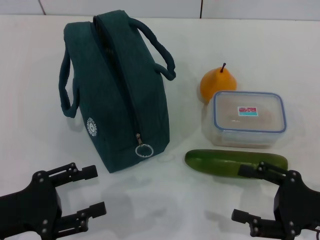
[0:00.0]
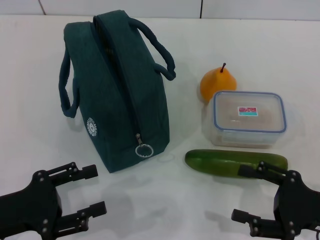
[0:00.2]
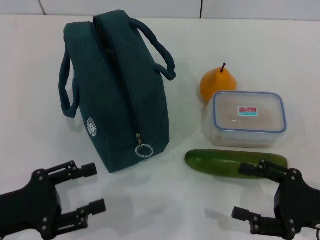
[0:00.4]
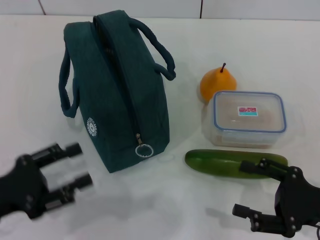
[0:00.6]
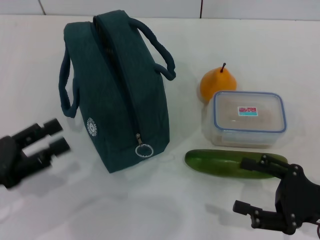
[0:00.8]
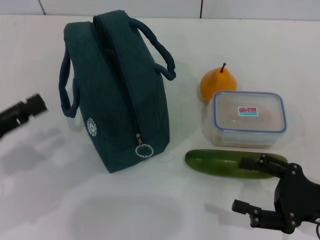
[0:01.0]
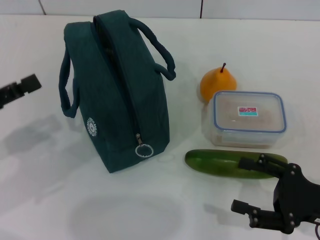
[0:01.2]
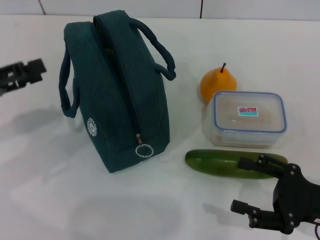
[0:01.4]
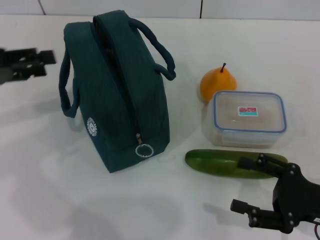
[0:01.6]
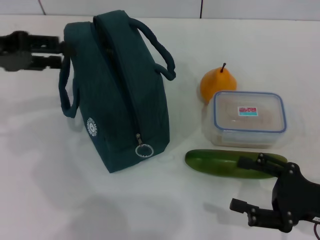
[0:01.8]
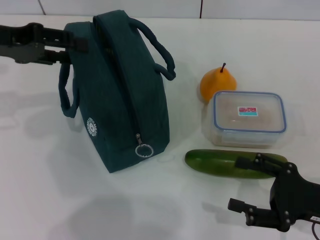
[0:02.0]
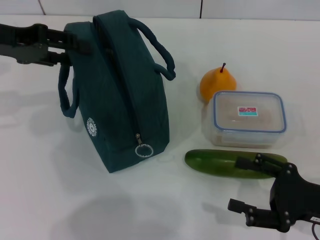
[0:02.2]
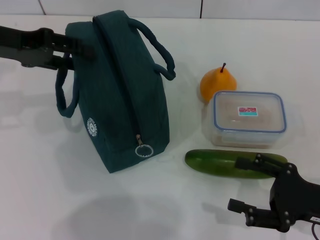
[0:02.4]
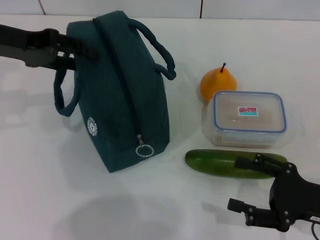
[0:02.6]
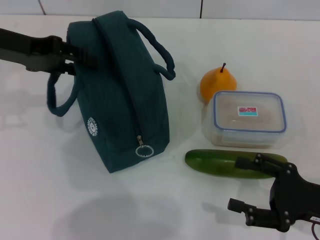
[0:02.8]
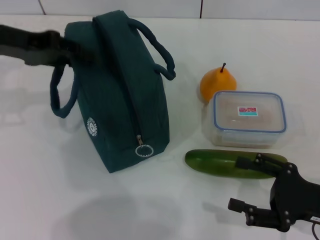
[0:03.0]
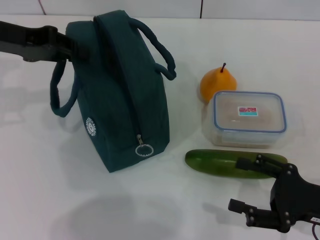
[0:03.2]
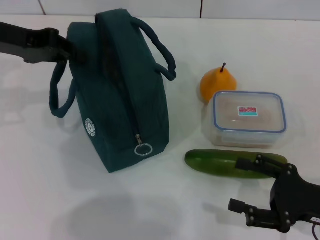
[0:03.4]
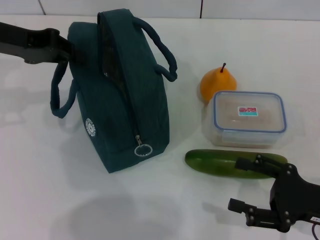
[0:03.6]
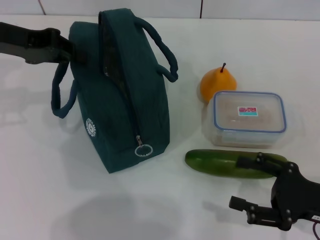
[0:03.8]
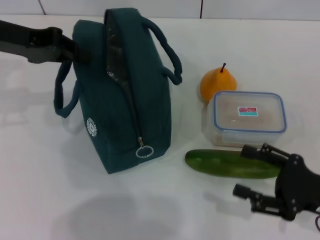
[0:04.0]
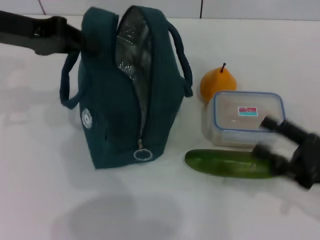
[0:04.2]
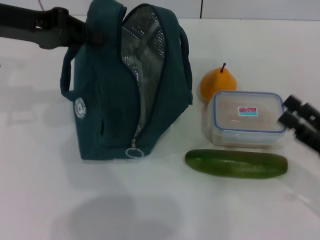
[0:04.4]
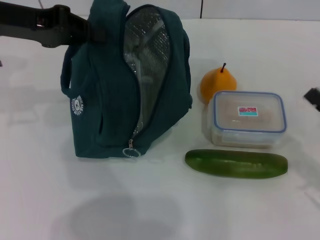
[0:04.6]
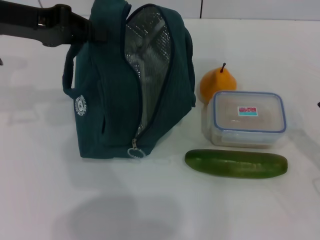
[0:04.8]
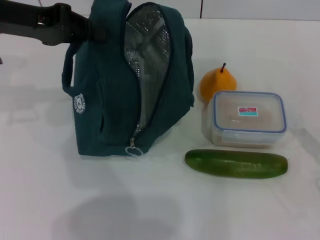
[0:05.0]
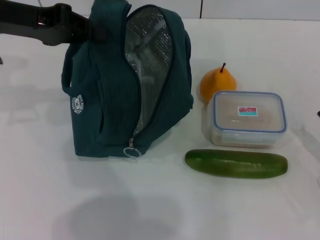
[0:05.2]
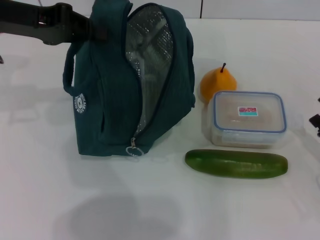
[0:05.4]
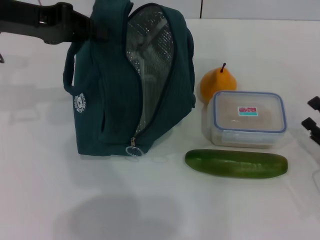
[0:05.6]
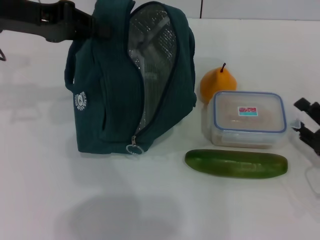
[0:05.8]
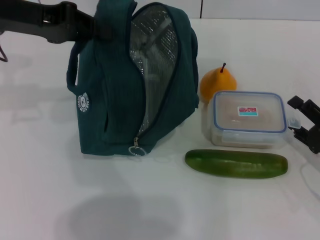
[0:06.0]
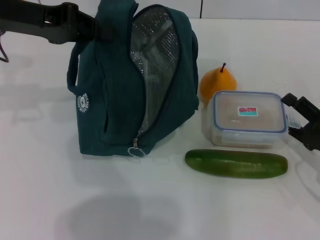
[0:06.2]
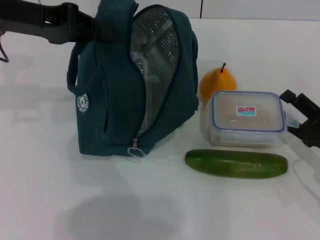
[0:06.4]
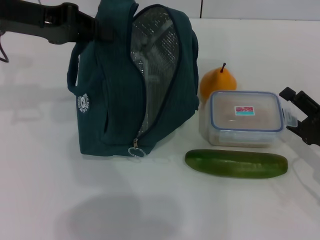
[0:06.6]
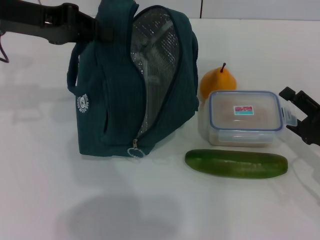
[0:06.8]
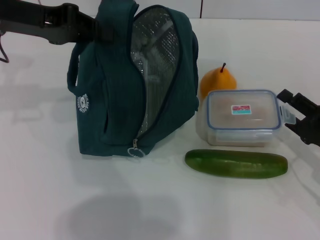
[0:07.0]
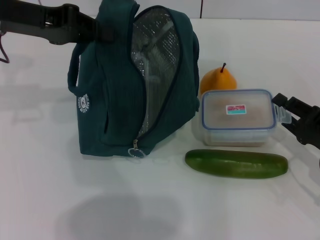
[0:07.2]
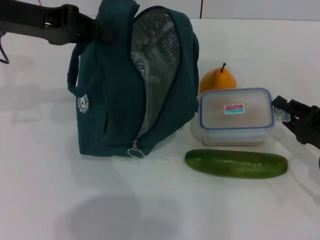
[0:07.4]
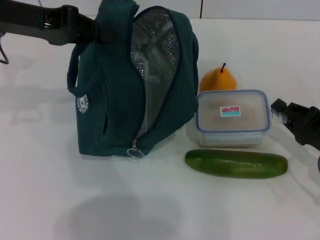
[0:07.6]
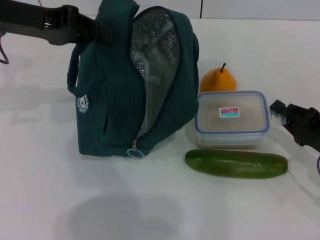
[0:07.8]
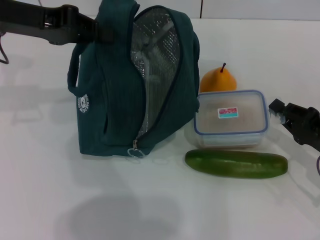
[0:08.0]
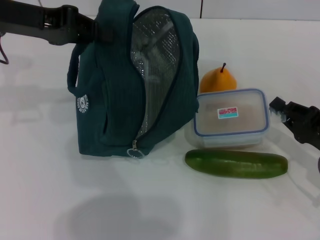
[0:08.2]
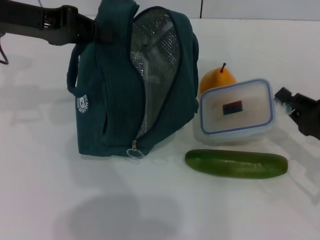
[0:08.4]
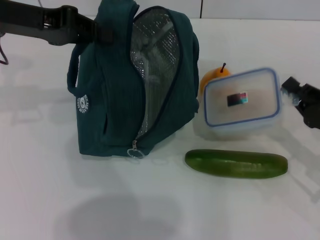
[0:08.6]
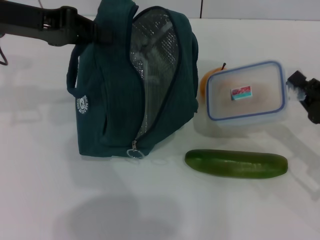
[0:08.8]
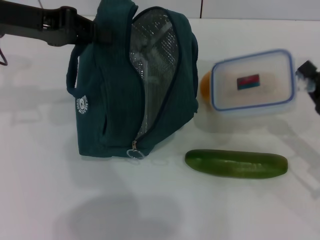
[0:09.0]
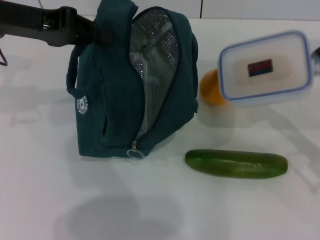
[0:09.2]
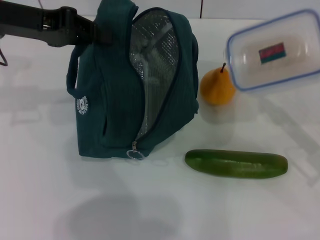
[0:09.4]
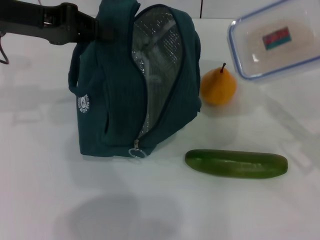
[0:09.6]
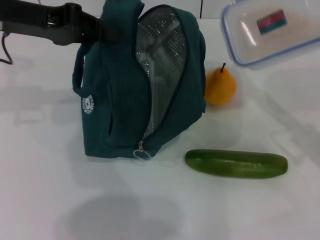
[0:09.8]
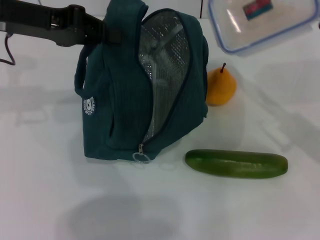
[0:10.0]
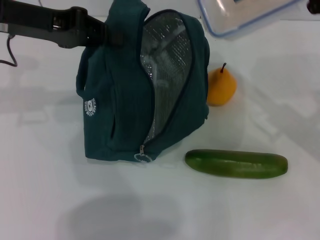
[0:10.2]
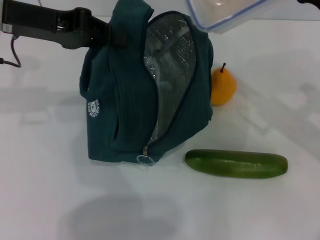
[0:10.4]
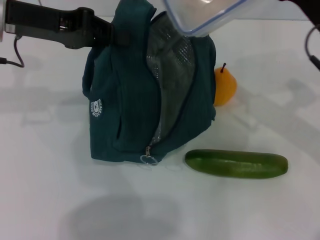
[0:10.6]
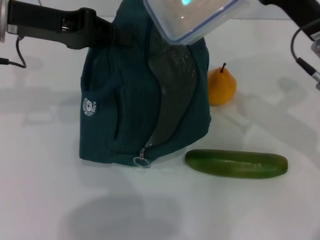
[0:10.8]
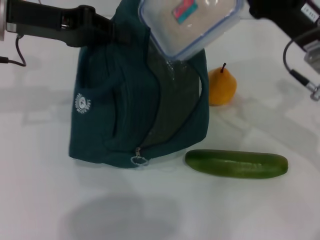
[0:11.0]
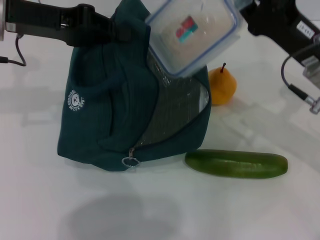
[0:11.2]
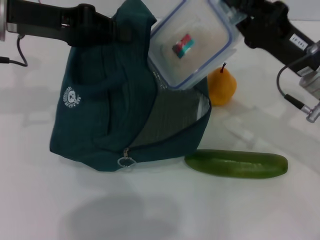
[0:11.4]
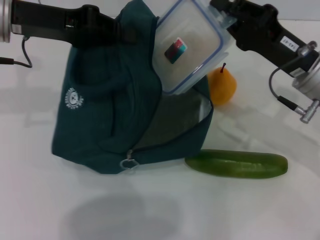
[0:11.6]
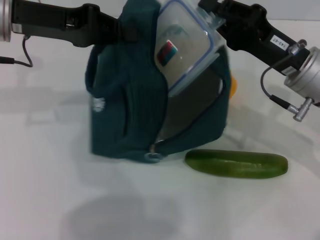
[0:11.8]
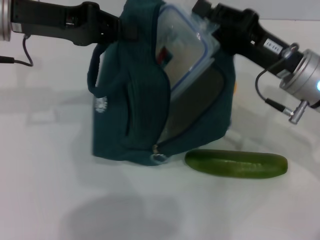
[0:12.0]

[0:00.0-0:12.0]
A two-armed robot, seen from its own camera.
Step, 0:00.0 to 0:03.8: Hold the lunch bag with your left hand.
Step, 0:04.0 to 0:07.8: Pick up the lunch box with your right hand.
0:00.0 to 0:01.6: The left gripper travels forward and upward by approximately 20 cm.
0:01.6 to 0:03.0: The left gripper is displaced forward and to the right by approximately 10 cm.
0:03.0 to 0:04.4: The left gripper closes.
0:04.4 to 0:06.0: The right gripper shifts by roughly 5 cm.
0:06.0 to 0:07.6: The right gripper closes up.
0:07.6 to 0:09.0: The grippers make only small movements.
0:09.0 to 0:10.4: The right gripper travels upward, forward and to the left by roughly 15 cm.
0:10.4 to 0:12.0: The right gripper shifts approximately 5 cm to the left.

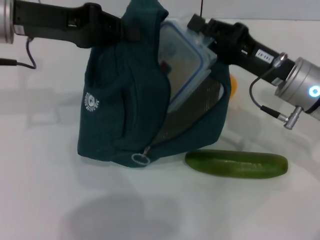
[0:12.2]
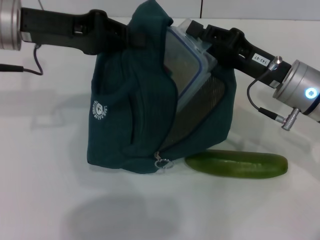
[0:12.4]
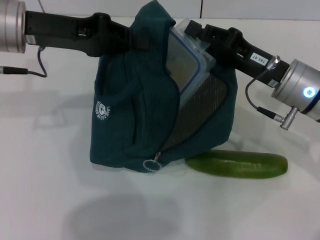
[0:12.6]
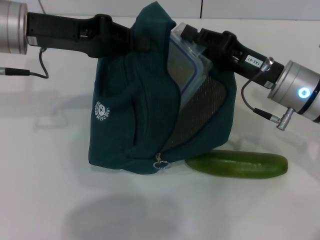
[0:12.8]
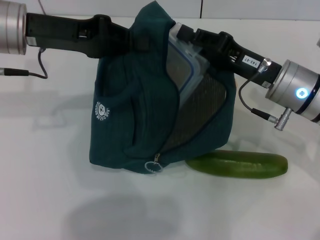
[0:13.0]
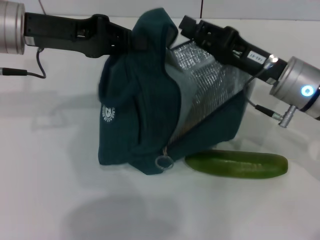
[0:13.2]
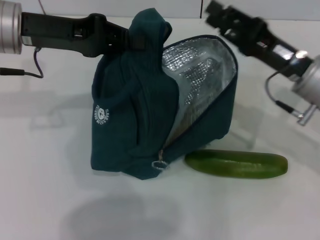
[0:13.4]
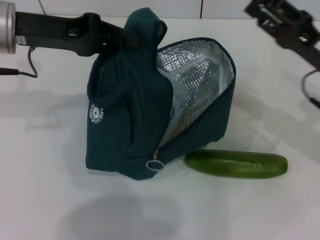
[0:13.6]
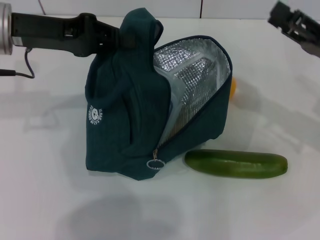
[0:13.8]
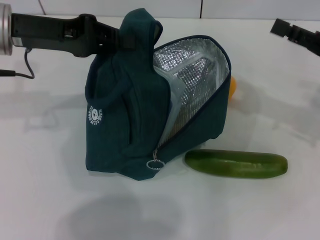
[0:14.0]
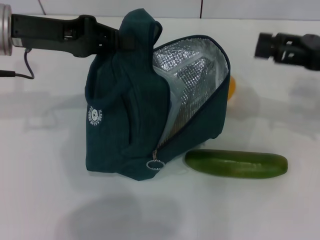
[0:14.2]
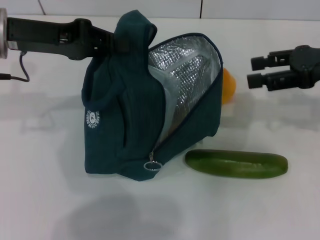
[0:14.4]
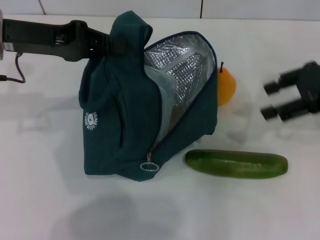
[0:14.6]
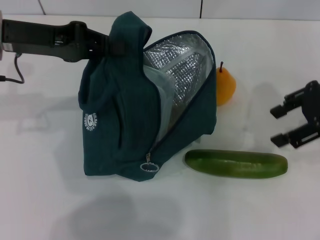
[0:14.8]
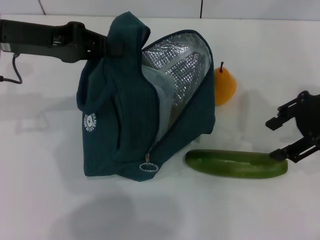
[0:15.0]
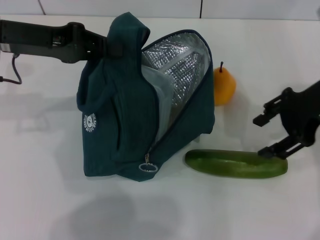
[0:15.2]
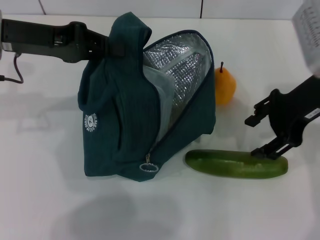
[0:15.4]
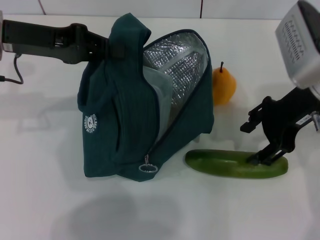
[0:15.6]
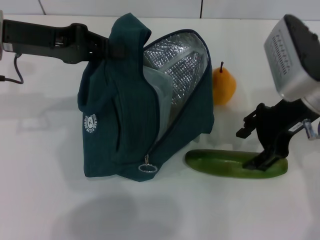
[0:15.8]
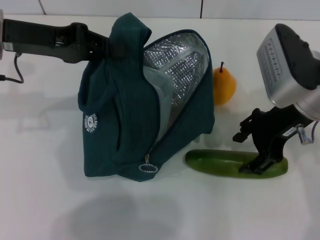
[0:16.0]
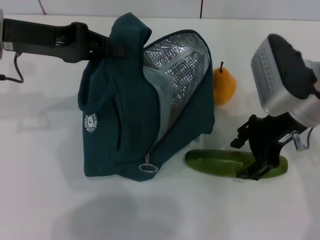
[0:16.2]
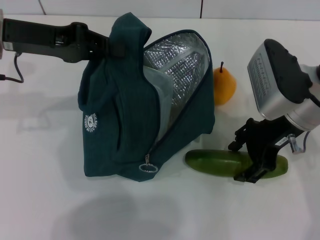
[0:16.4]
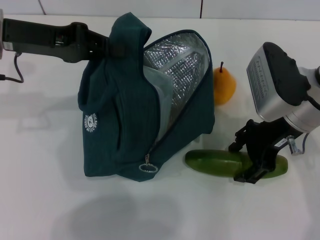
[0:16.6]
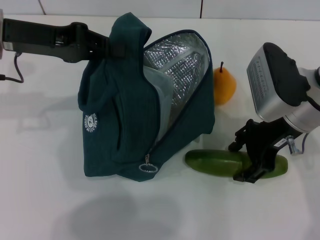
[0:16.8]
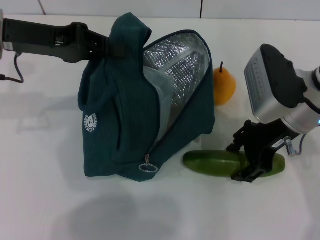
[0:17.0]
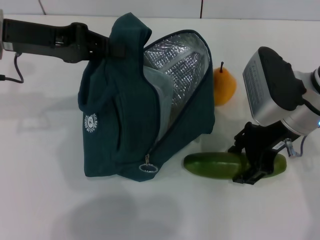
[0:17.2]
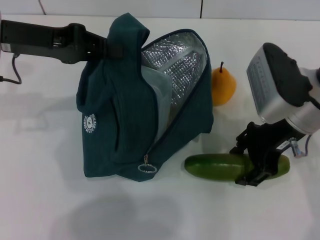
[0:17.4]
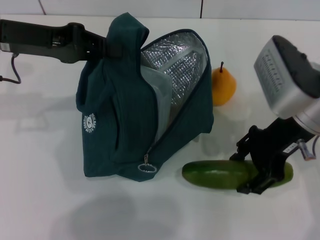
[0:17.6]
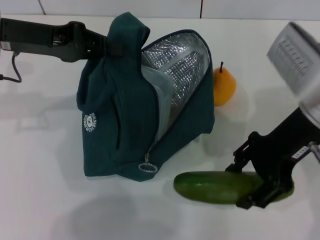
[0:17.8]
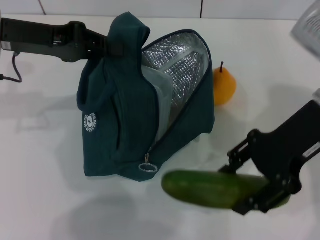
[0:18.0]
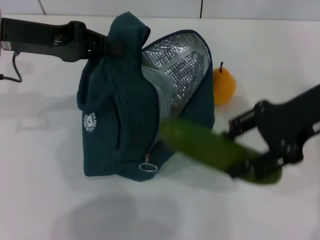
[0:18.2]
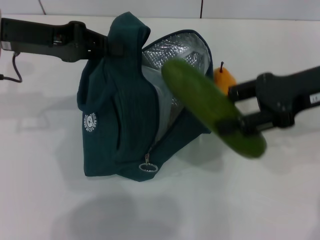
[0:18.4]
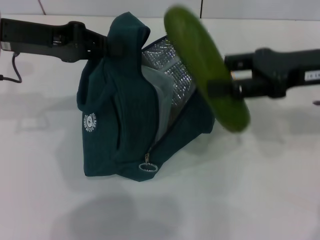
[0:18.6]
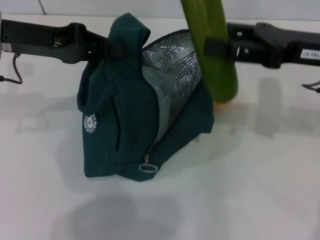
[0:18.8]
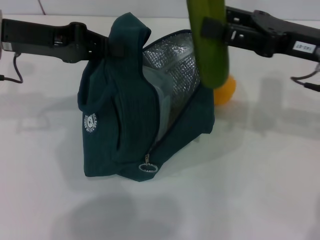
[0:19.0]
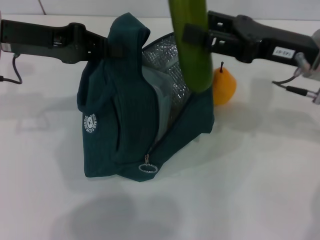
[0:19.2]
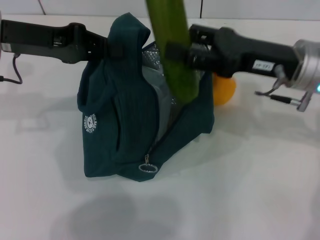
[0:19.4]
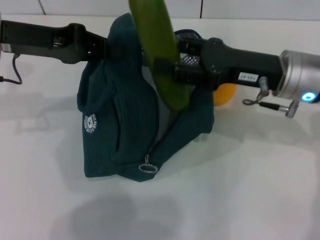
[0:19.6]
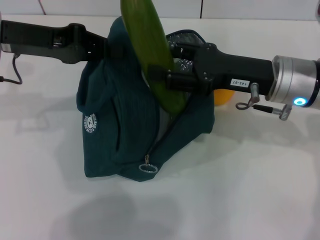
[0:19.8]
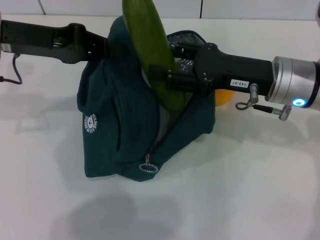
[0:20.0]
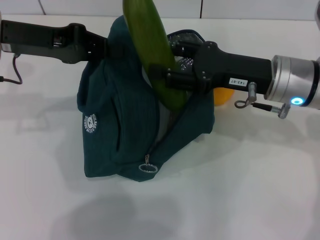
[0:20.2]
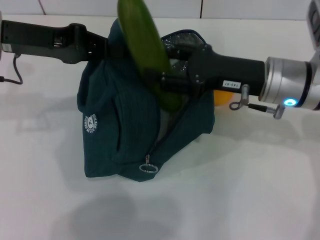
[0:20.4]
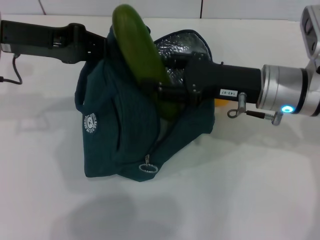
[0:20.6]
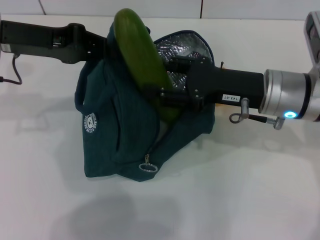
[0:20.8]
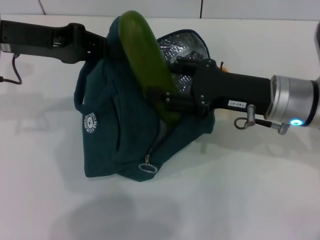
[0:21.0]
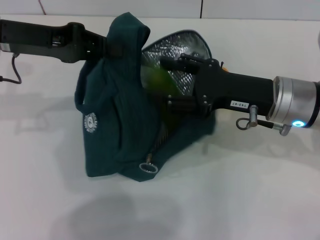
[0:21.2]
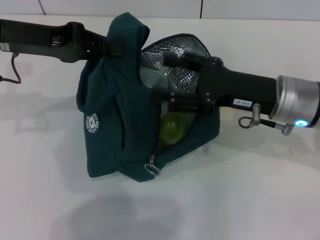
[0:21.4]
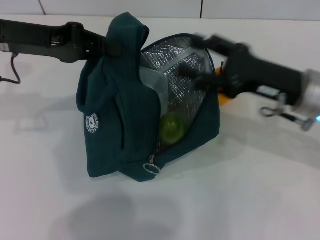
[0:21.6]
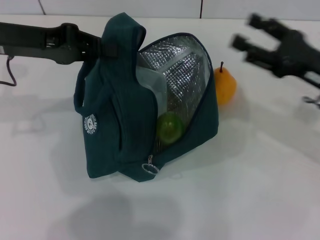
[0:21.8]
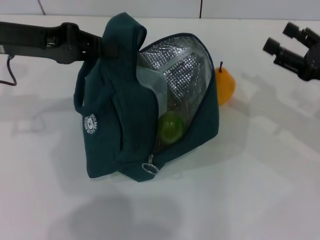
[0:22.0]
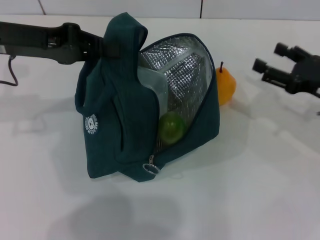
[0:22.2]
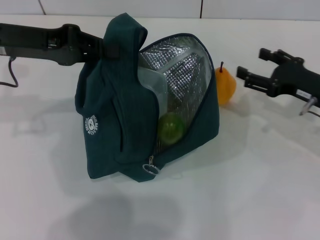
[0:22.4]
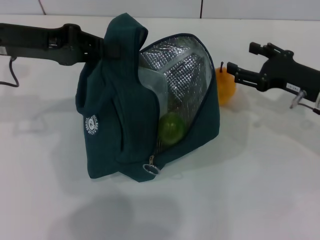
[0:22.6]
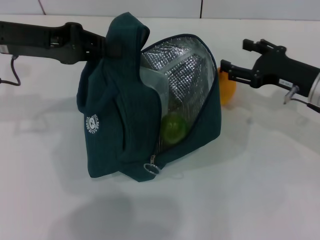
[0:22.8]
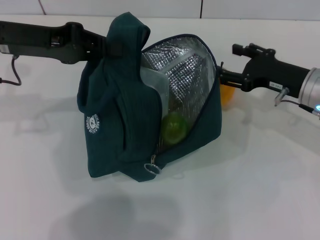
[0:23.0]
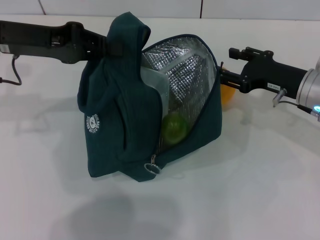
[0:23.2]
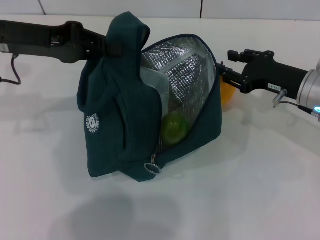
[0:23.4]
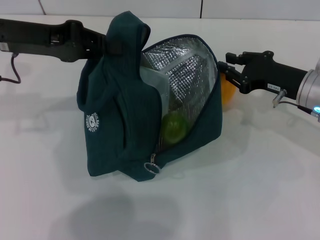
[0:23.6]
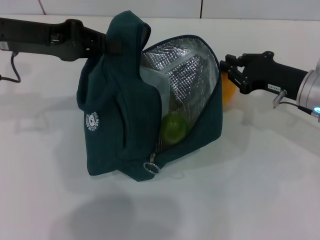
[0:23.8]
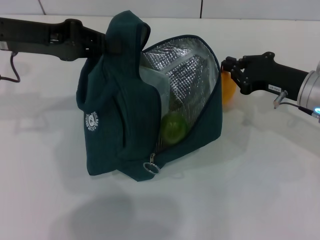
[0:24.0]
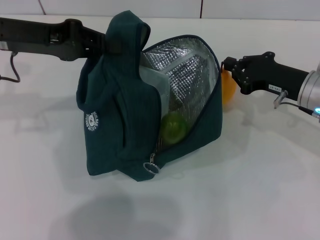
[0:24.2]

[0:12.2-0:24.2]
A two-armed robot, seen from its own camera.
Step, 0:13.8 to 0:17.0: Pick up the cucumber with your right hand.
Step, 0:17.4 to 0:21.6: Put the cucumber into the lunch bag with your right hand.
0:12.2 to 0:13.8: The right gripper travels to the right by approximately 10 cm, and opens up.
0:13.8 to 0:15.2: The right gripper is displaced upward and to the left by roughly 10 cm.
0:15.2 to 0:16.6: The right gripper heads downward and to the left, covering about 10 cm.
0:16.6 to 0:18.2: The right gripper is displaced upward by some 5 cm.
0:18.2 to 0:19.8: The right gripper goes approximately 10 cm downward and to the left.
0:19.8 to 0:21.2: The grippers stay close to where they were, moving slightly.
0:21.2 to 0:22.6: The right gripper travels to the right by roughly 10 cm.
0:22.6 to 0:24.2: The right gripper closes its fingers.
